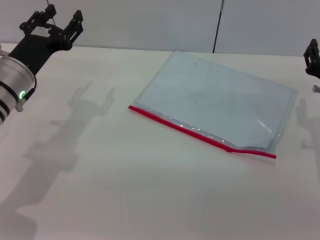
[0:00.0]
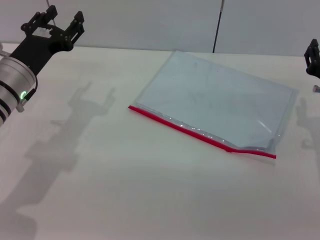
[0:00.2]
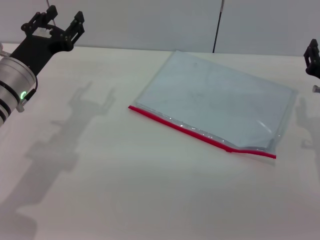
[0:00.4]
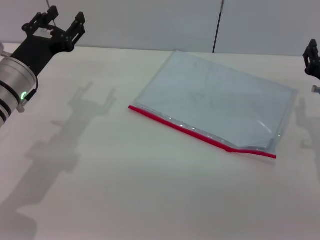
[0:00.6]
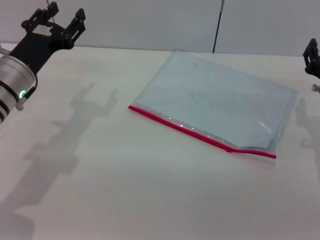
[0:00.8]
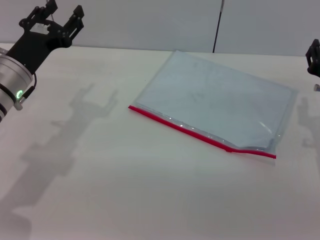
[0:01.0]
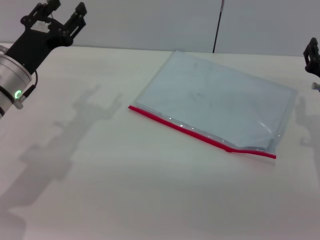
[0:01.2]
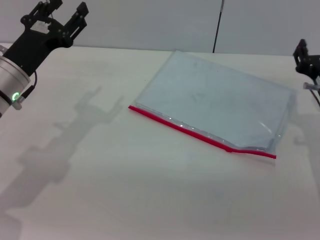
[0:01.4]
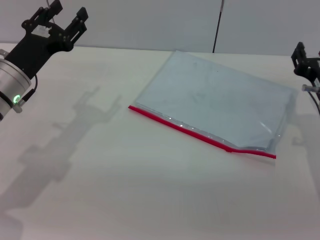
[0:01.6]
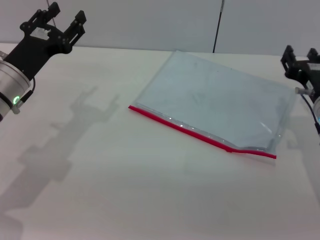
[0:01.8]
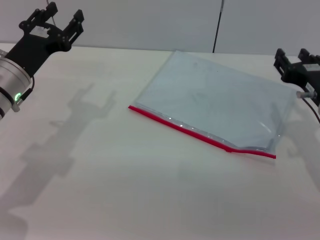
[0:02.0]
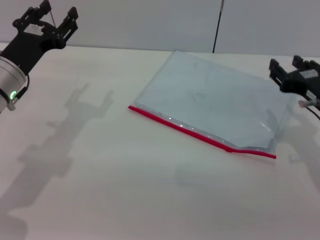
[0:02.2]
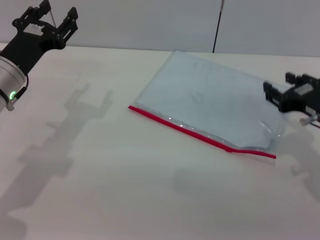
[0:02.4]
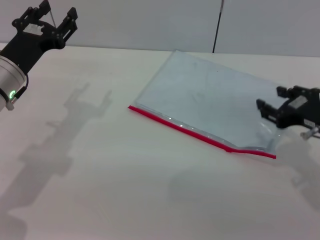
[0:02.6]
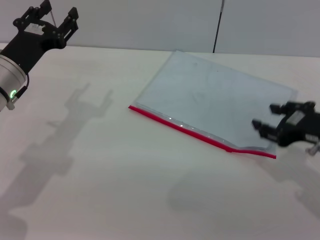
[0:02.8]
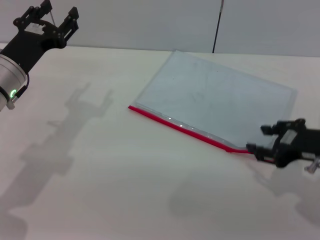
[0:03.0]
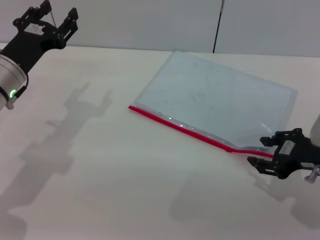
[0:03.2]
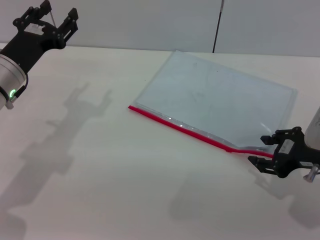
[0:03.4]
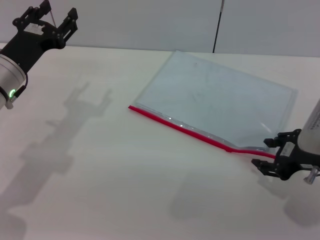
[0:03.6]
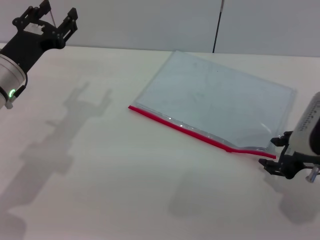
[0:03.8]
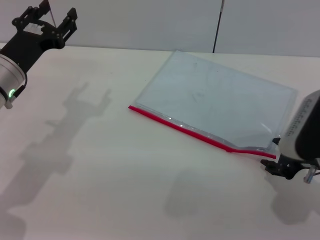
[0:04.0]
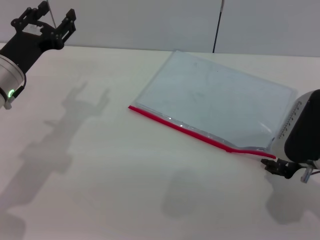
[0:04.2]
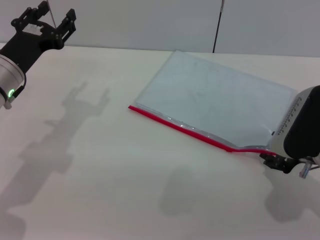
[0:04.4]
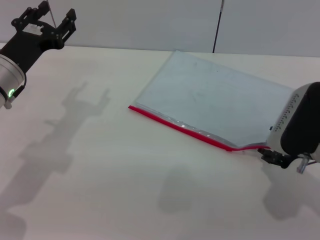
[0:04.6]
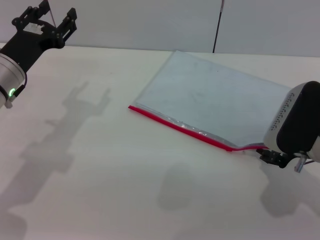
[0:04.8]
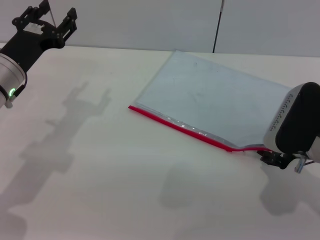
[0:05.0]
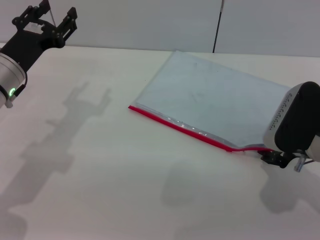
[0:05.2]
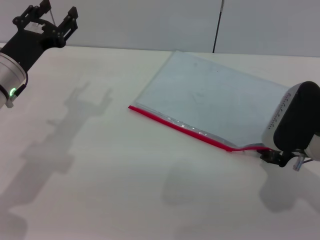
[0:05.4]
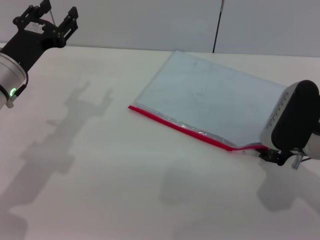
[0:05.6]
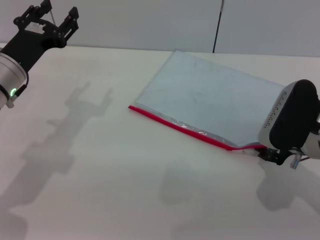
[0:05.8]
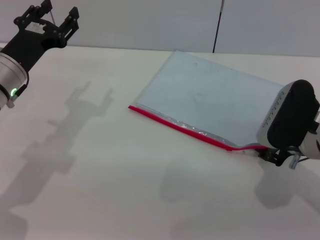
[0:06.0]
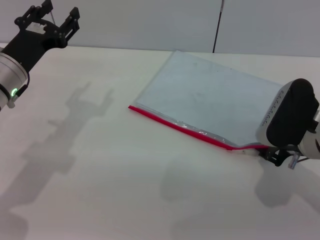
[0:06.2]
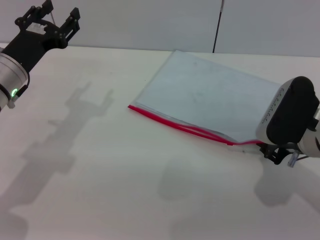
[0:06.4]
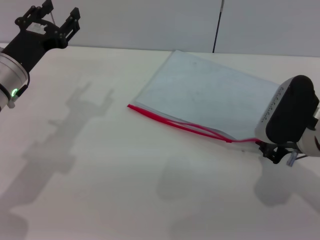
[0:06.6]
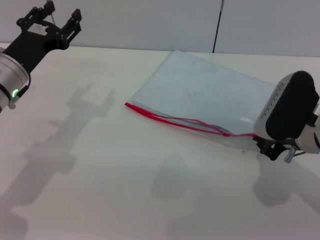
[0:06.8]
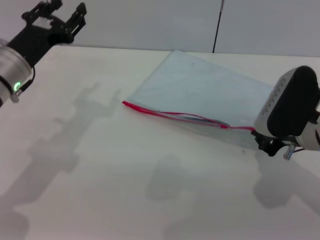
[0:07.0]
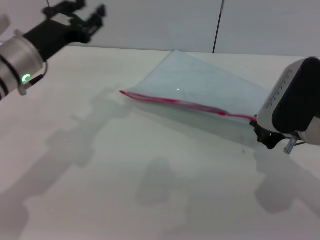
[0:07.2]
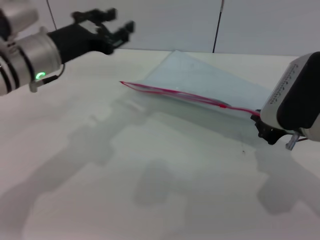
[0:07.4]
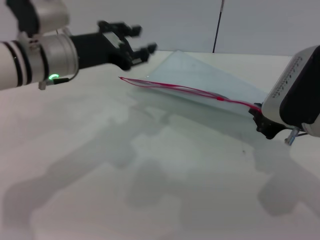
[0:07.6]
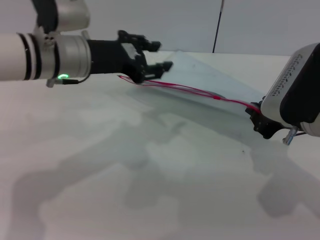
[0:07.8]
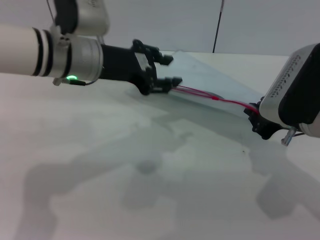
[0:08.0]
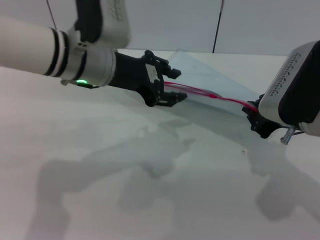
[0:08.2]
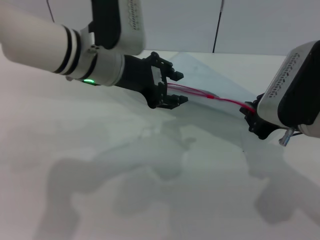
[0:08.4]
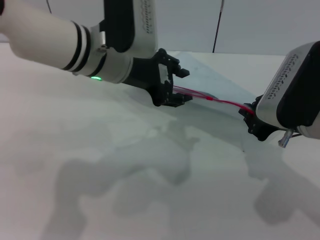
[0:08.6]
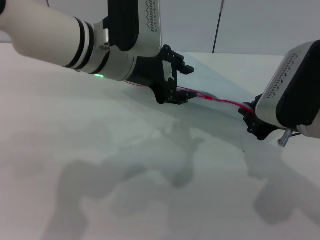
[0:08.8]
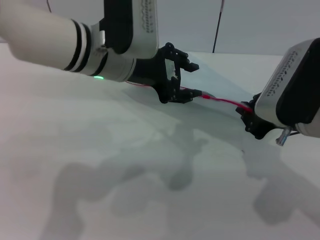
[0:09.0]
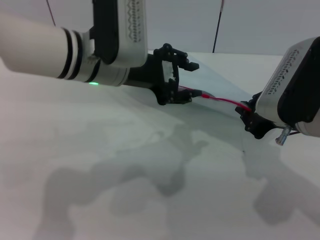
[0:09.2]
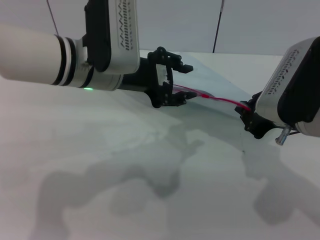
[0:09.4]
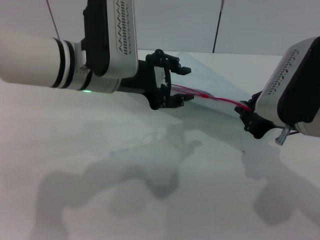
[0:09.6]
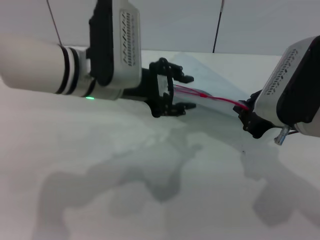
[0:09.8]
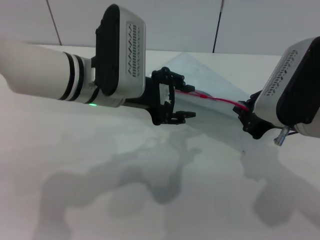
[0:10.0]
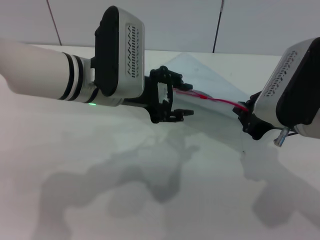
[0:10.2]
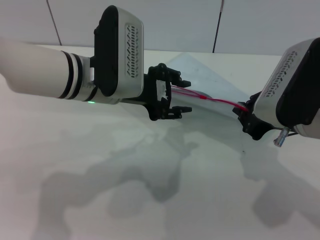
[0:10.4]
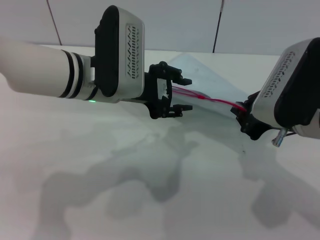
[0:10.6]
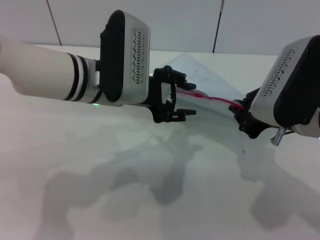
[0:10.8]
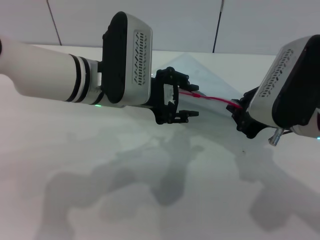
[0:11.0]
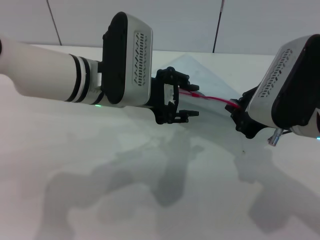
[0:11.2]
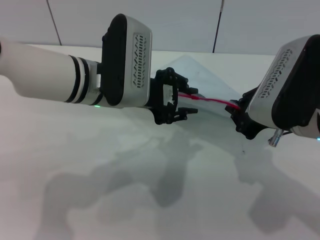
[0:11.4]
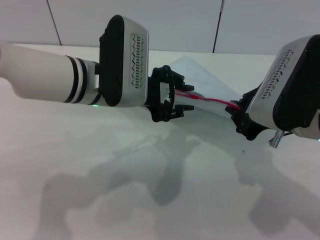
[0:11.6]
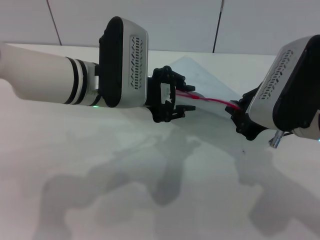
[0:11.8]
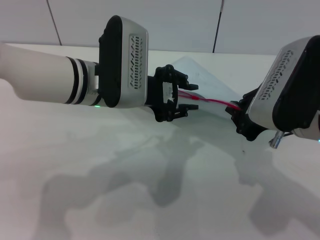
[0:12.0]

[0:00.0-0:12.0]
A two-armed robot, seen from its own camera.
Step, 0:00.0 to 0:07.2: Pick up the transparent plastic bag with the right gripper.
0:00.0 to 0:01.6: There are only small adjustments of the grippers.
0:01.6 to 0:03.0: The right gripper travels backward by roughly 5 cm.
0:04.4 to 0:06.0: There are only small adjustments of the grippers.
0:06.0 to 0:07.6: The left gripper heads to the right and upward, covering approximately 10 cm; the right gripper moves upward, roughly 5 cm, and closes.
0:07.6 to 0:09.0: The left gripper heads to the right, covering approximately 10 cm.
0:09.0 to 0:12.0: There are only small adjustments of the grippers.

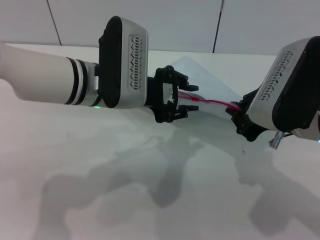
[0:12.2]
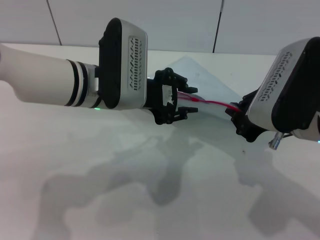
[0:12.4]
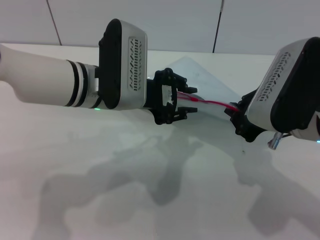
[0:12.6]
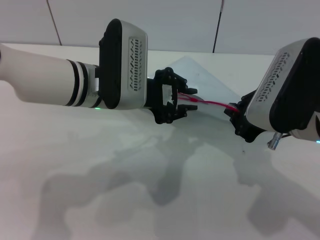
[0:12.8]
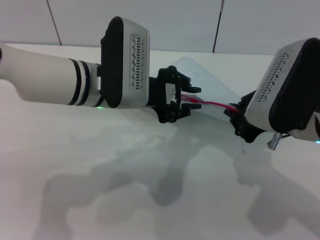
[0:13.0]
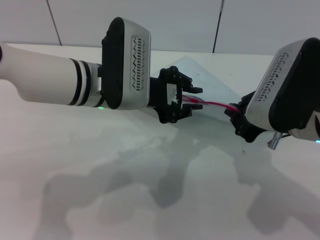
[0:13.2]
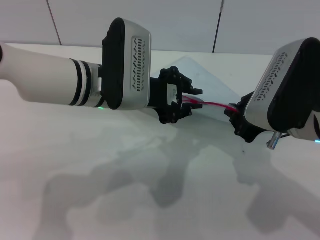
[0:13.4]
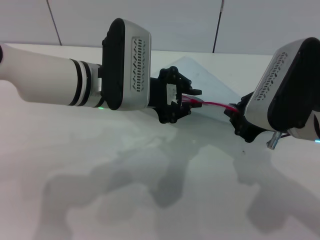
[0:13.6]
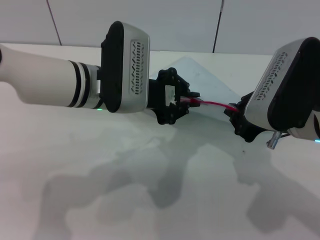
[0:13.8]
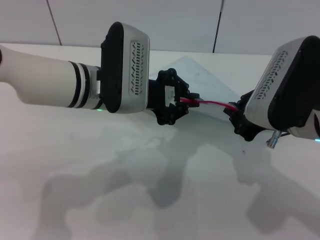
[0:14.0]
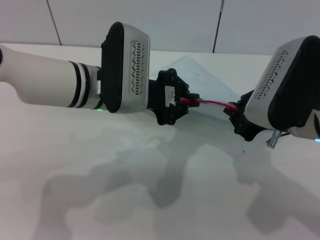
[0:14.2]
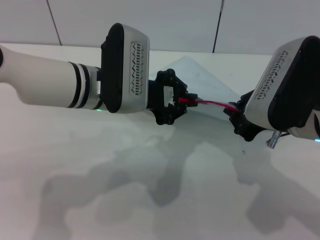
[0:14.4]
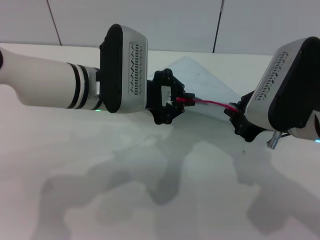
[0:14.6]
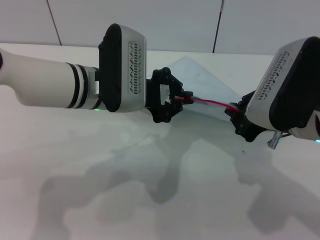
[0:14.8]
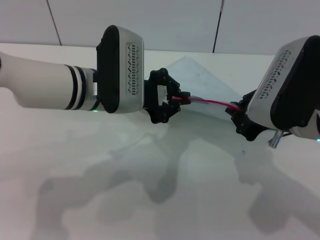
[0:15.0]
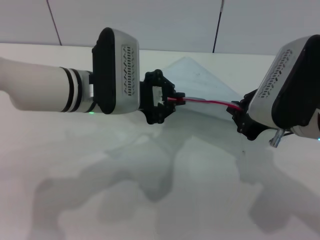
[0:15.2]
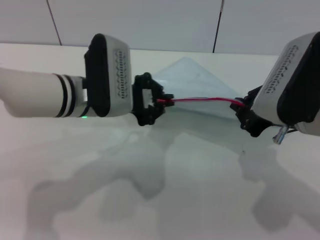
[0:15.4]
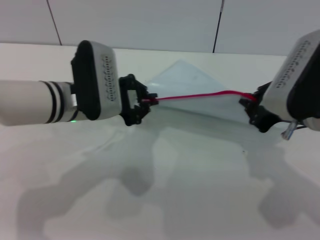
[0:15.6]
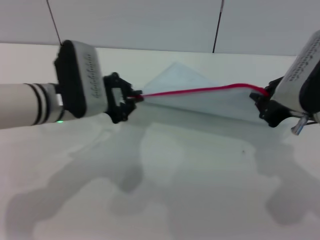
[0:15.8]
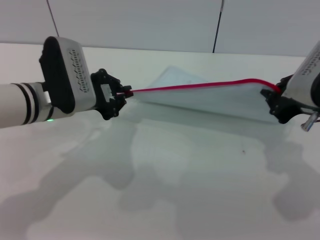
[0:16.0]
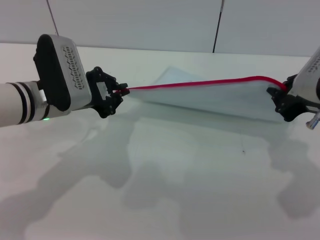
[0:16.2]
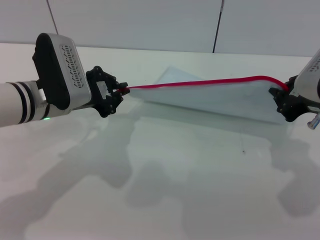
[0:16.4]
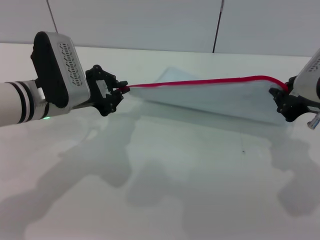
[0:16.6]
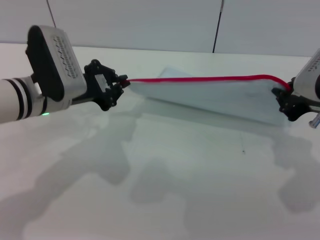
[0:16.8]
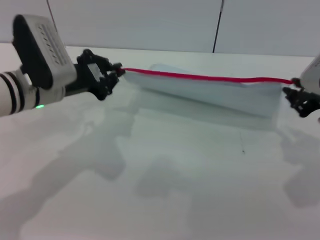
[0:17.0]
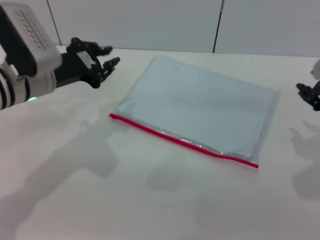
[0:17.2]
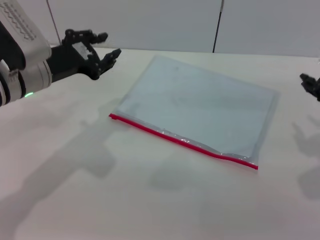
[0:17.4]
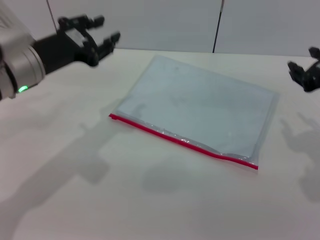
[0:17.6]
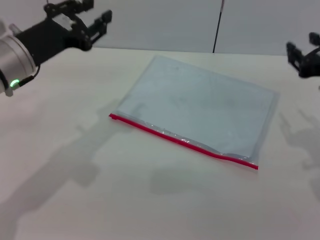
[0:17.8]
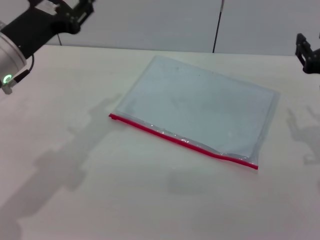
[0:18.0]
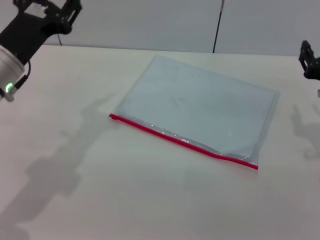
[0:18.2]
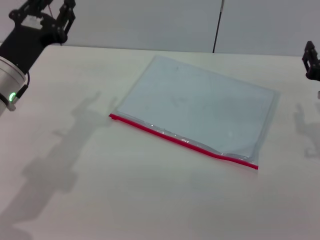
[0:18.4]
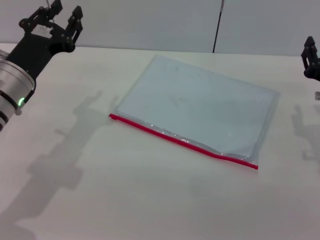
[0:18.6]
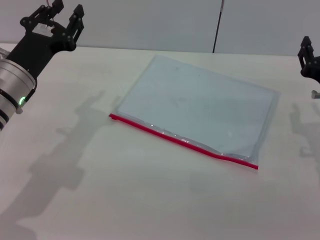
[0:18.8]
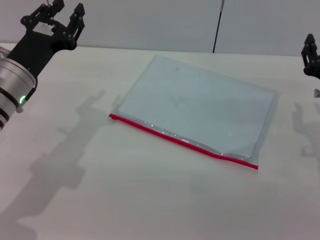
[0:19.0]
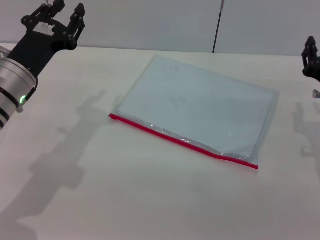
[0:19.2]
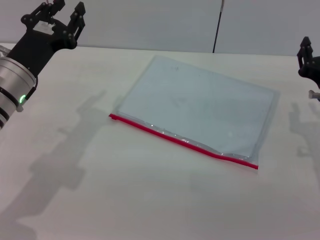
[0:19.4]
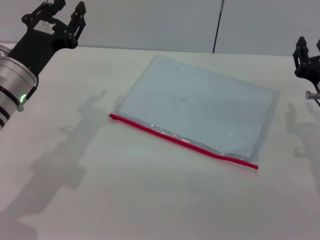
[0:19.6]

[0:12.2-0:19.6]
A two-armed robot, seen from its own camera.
Step, 0:12.2 to 0:17.2: Pulling up the zipper on the transparent plastic bag with the left gripper to close it.
Step, 0:17.4 to 0:18.2: Place the transparent plastic bag.
0:12.2 to 0:13.6: Neither gripper changes place.
0:13.6 to 0:15.2: The grippers stay close to where they were, moving slightly.
0:15.2 to 0:16.6: The left gripper travels to the left by approximately 5 cm.
0:16.6 to 0:18.2: The right gripper shifts about 10 cm downward, and opens up. The left gripper moves approximately 5 cm, and opens its fingers.
0:18.2 to 0:19.6: The grippers make only small movements.
